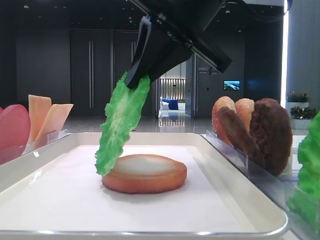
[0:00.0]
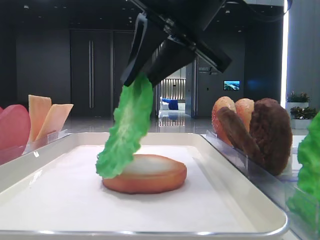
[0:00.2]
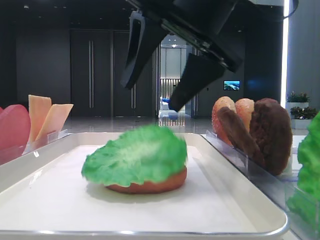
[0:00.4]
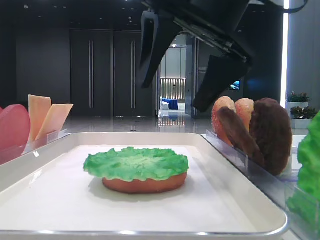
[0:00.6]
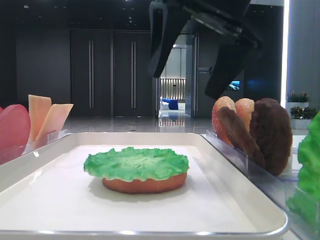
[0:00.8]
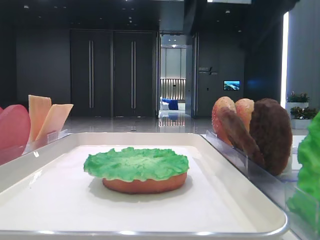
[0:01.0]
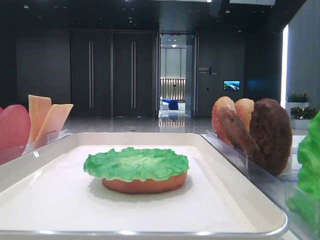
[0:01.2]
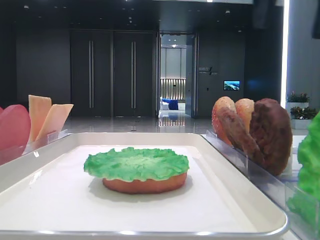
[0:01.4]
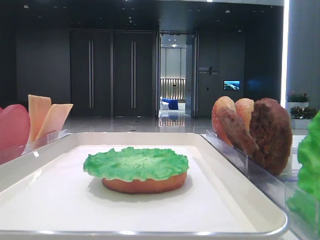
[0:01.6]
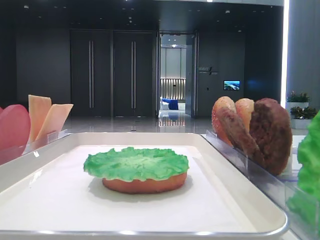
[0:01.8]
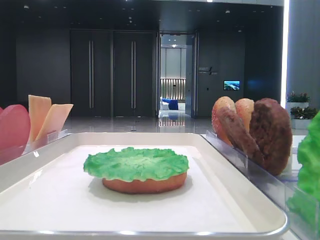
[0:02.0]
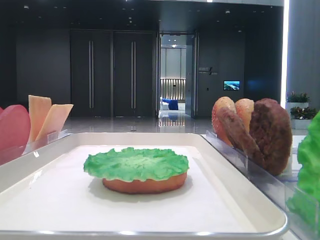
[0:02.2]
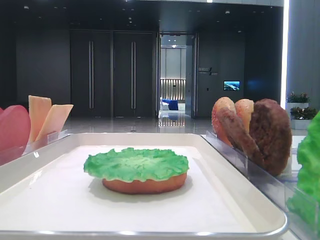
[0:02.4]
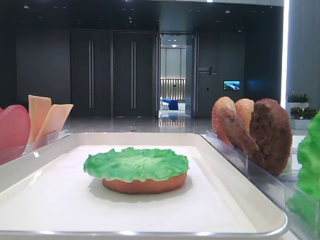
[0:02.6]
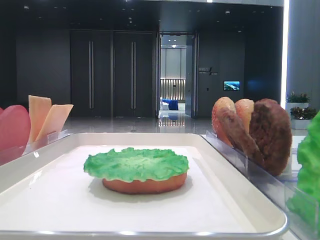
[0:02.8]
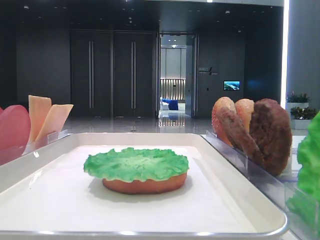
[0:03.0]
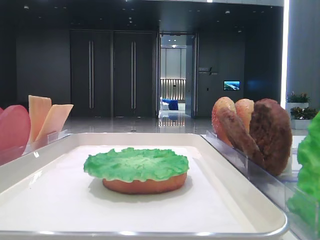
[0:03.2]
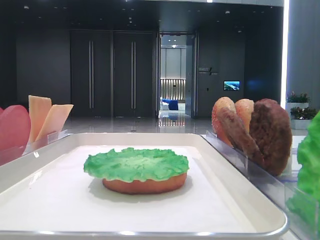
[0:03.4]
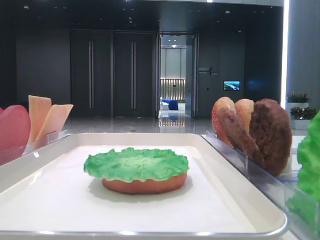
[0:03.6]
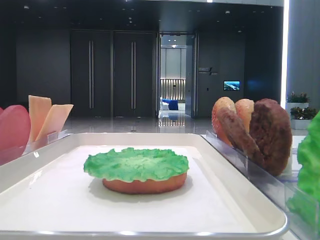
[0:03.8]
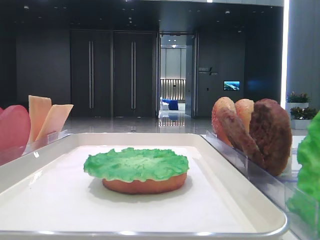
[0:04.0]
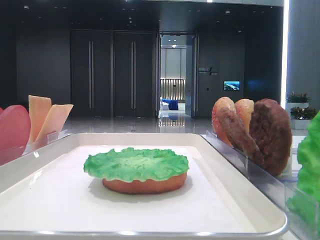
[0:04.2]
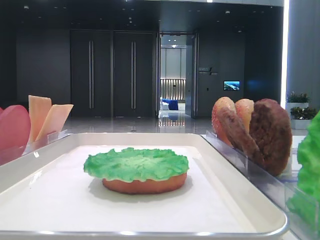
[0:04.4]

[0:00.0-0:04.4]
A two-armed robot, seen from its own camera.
0:00.0 to 0:01.4: The right gripper goes about 15 cm to the right and upward, and opens.
0:01.4 to 0:03.0: The right gripper travels backward and to the right by about 30 cm.

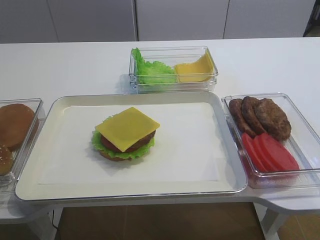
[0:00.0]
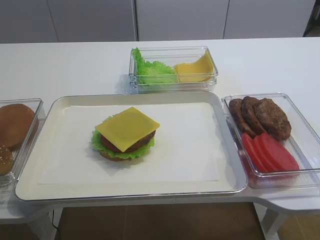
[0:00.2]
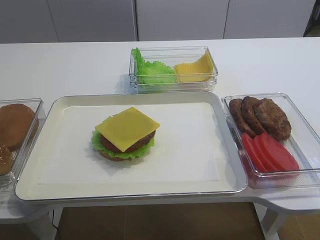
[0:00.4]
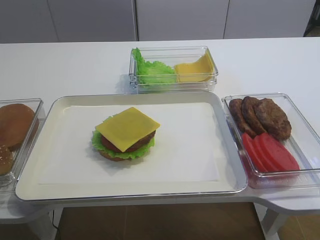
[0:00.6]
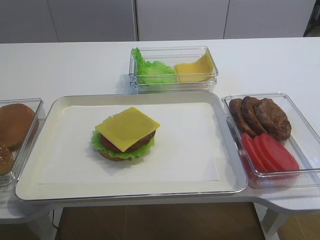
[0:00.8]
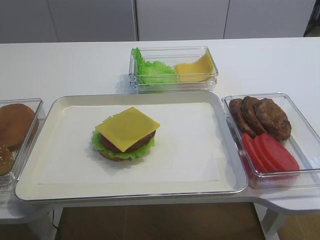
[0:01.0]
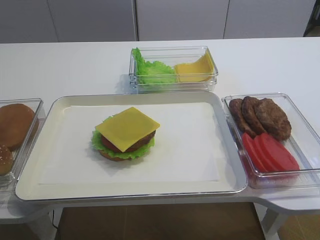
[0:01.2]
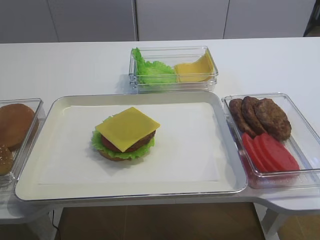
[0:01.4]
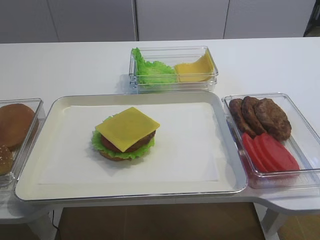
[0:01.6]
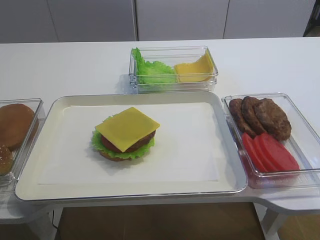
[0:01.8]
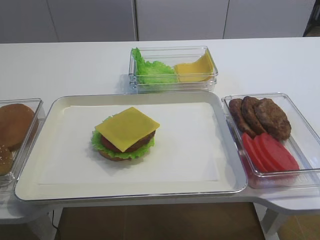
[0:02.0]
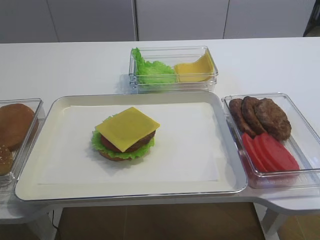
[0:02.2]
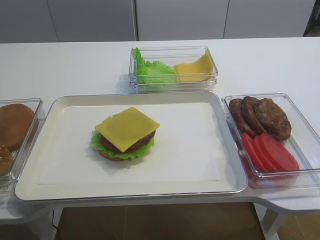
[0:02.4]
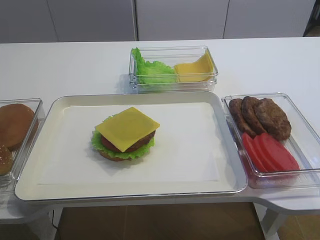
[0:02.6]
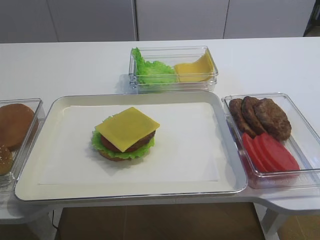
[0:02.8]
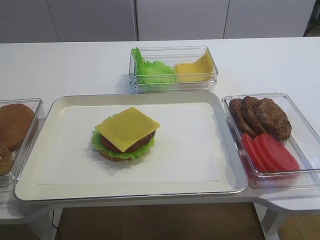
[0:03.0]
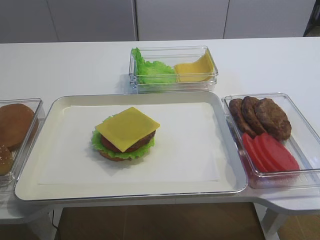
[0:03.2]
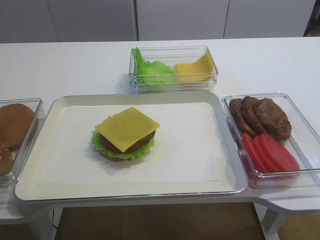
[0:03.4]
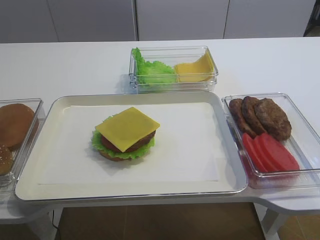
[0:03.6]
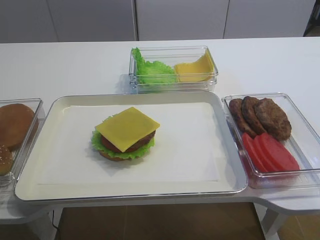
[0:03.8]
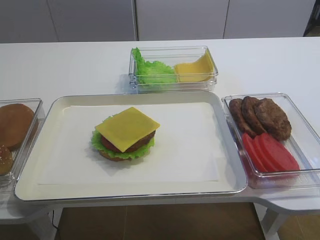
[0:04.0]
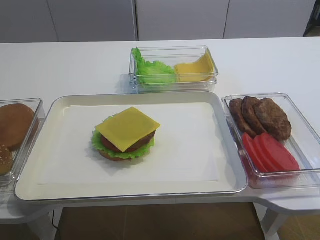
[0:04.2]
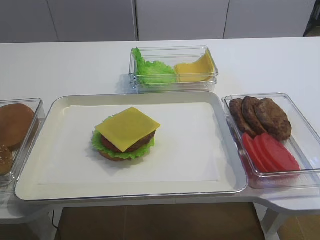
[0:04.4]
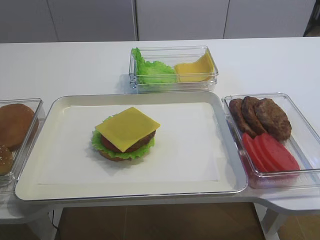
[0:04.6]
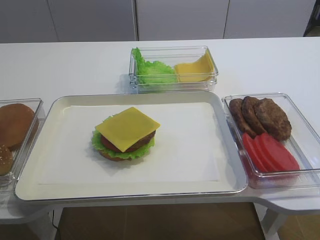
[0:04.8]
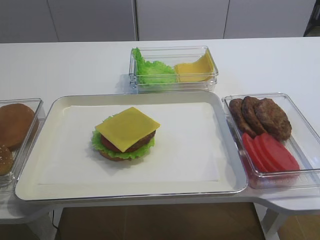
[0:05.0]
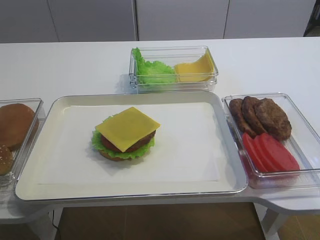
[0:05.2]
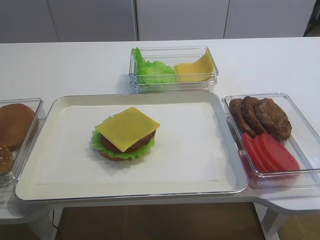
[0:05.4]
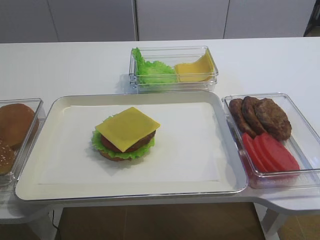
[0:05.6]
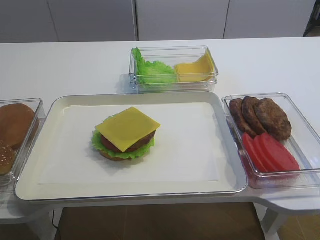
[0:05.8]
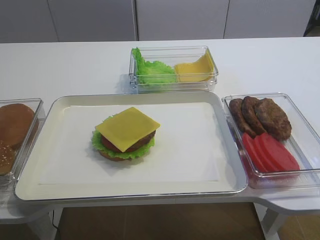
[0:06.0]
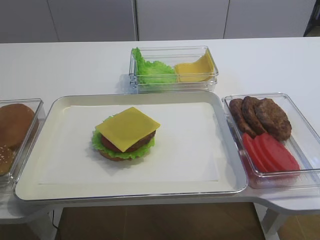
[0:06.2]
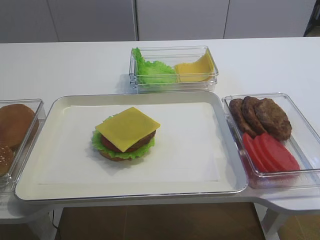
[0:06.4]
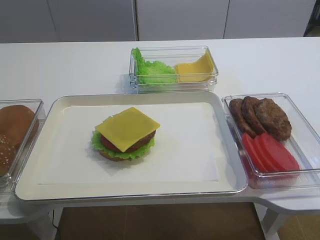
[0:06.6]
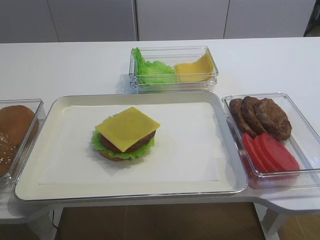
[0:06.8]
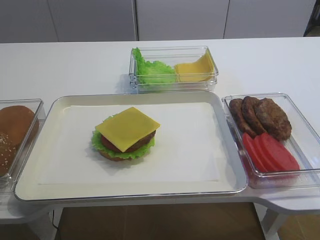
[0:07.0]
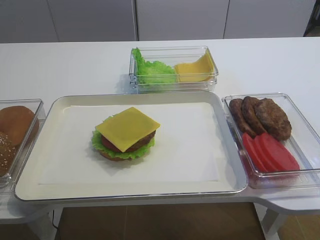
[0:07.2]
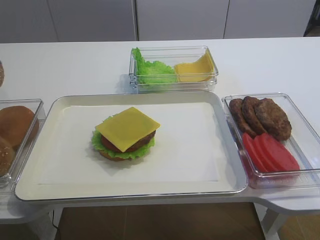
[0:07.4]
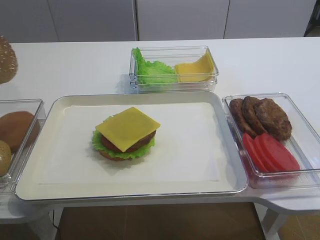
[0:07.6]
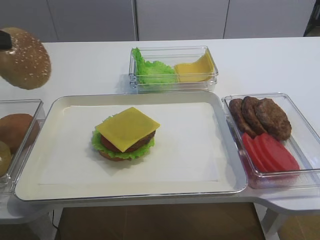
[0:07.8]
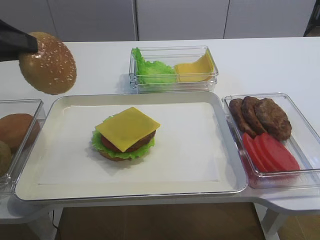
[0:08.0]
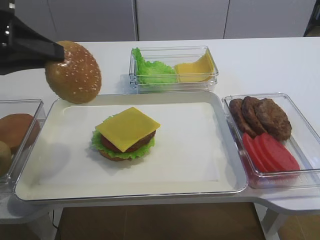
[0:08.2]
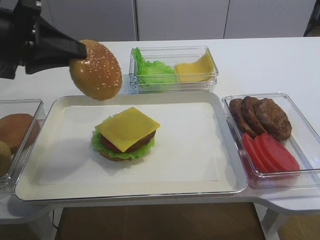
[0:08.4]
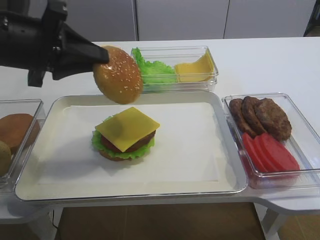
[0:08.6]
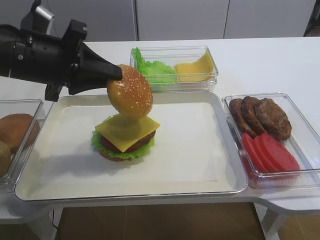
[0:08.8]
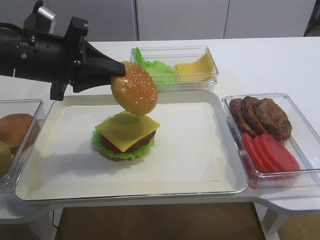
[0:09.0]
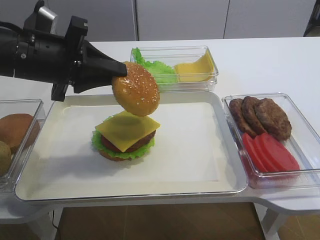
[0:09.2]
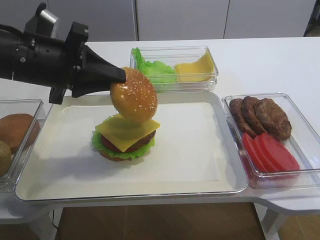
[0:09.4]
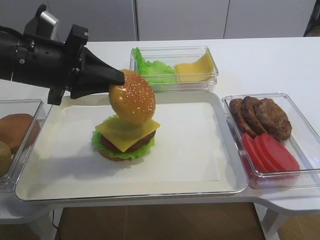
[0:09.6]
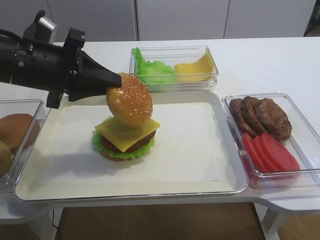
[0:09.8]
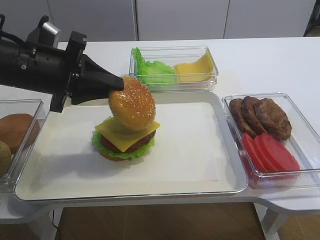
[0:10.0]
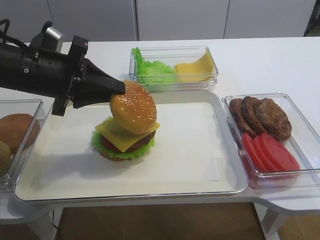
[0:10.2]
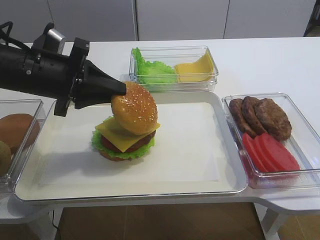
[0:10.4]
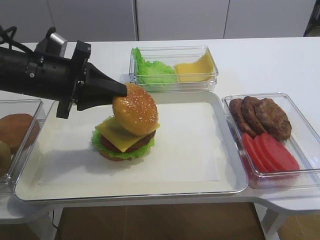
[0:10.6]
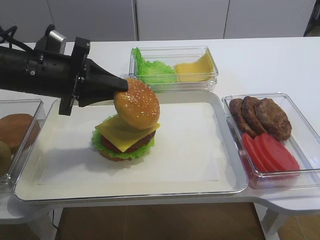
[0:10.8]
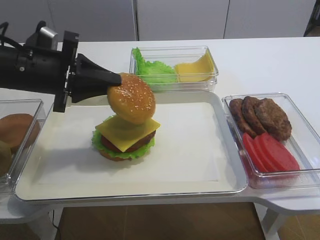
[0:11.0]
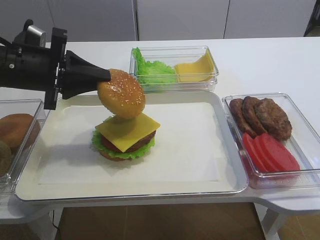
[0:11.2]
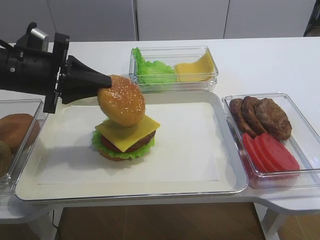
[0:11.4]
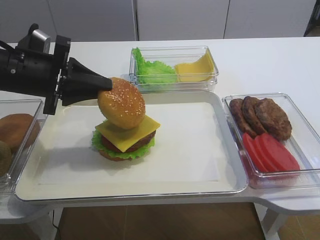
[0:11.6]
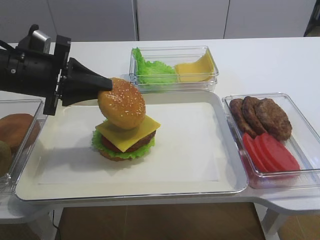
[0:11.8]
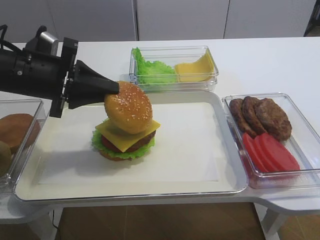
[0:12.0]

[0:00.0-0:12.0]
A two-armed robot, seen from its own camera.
0:06.0 to 0:07.6: The left gripper moves upward, roughly 10 cm.
0:07.6 to 0:09.0: The left gripper is displaced to the right by about 15 cm.
0:09.0 to 0:12.0: The grippers make only small movements.

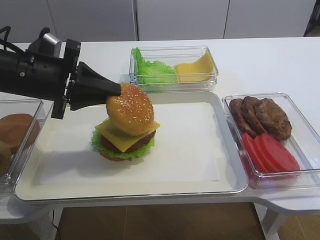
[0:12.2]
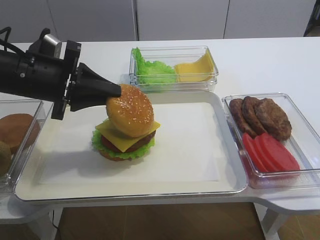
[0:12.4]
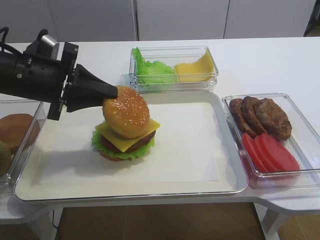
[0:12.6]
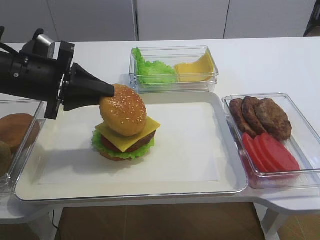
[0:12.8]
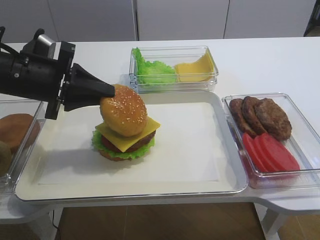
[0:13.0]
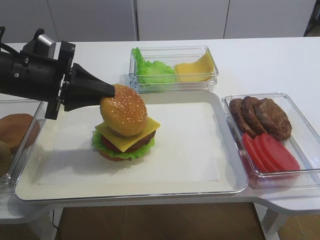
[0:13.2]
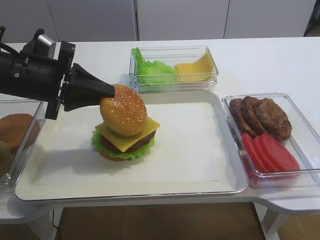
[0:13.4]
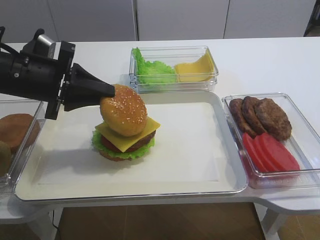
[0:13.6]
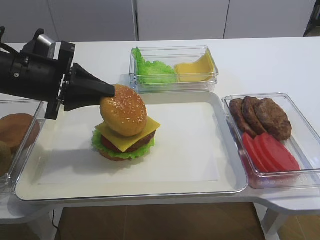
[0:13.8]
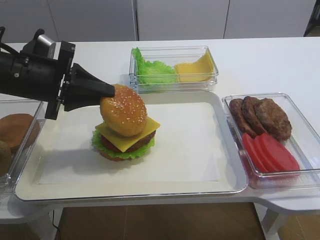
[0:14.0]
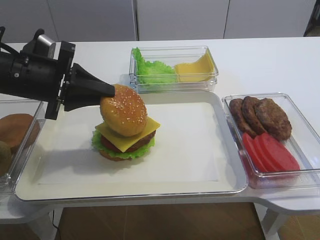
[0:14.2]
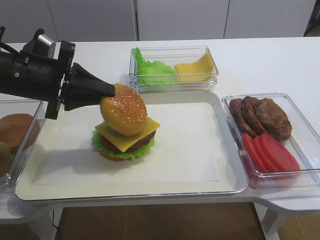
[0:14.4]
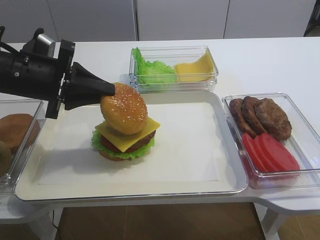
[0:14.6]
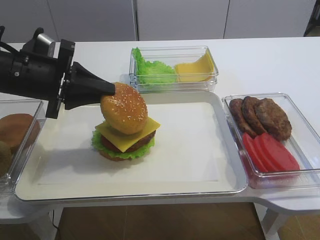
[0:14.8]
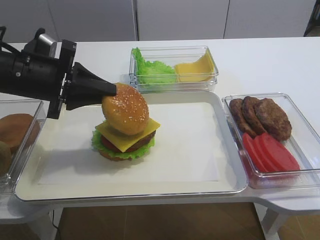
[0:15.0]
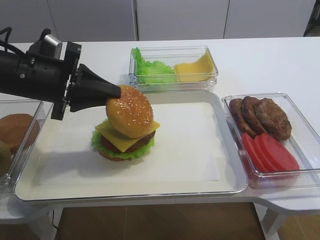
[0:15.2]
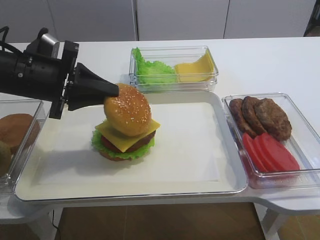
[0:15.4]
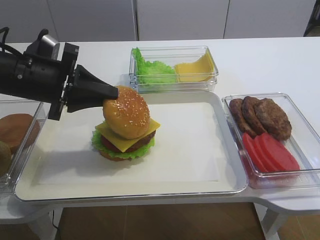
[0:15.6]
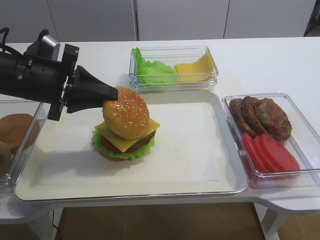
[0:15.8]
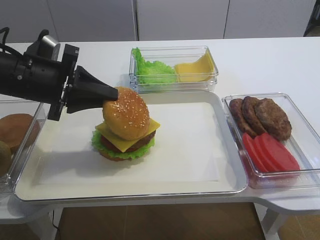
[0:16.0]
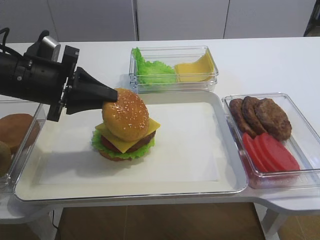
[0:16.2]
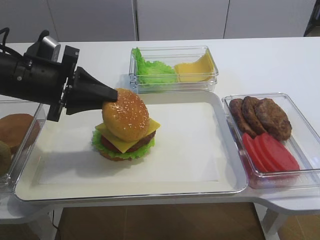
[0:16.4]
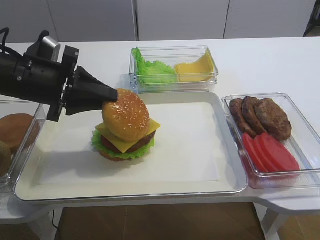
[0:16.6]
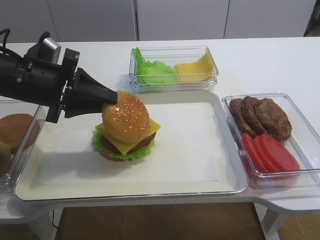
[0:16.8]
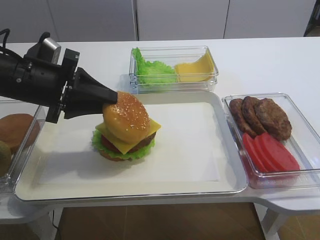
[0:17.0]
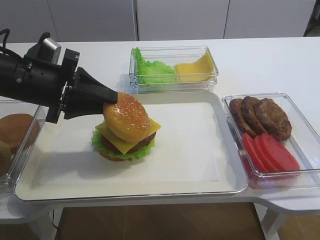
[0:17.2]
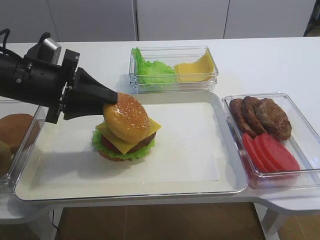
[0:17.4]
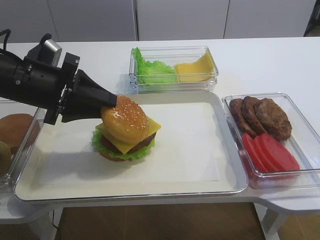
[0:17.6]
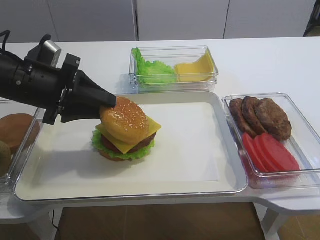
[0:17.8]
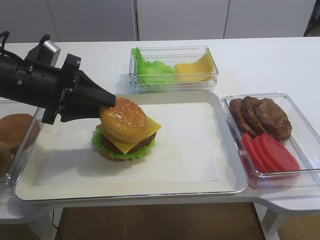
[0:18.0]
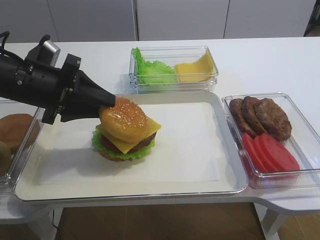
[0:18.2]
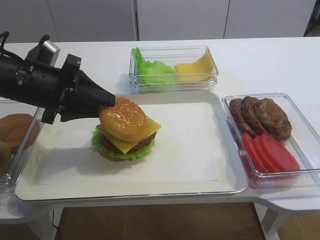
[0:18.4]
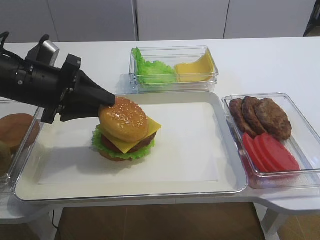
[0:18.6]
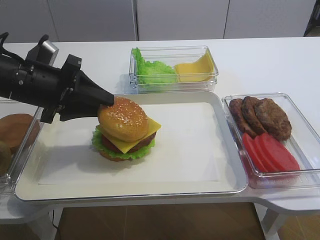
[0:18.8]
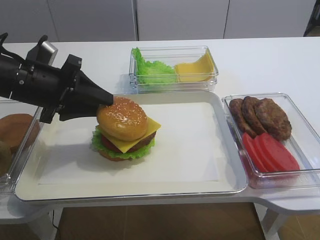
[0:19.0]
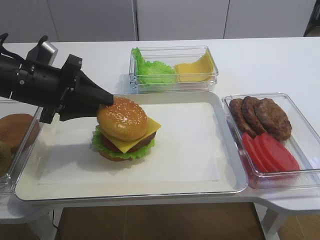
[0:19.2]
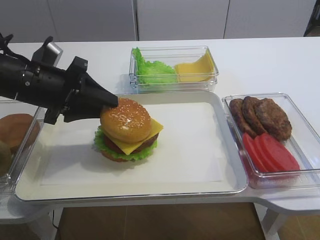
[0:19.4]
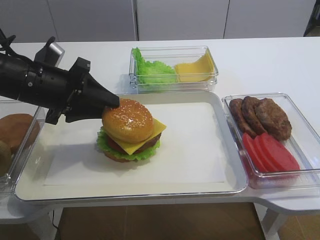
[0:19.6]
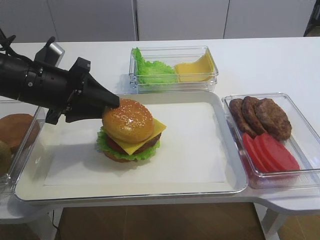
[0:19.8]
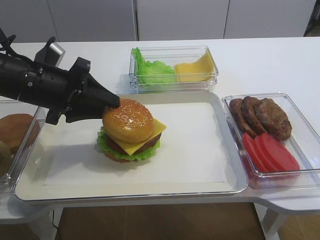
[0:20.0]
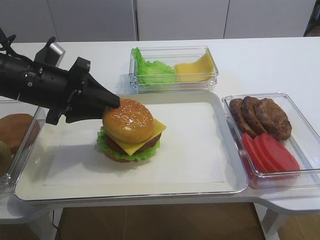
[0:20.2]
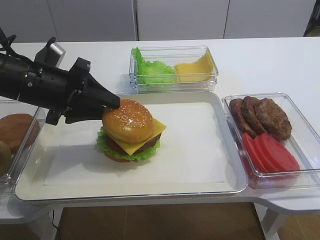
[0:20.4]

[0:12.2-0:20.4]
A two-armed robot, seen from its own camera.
0:12.2 to 0:17.2: The two grippers keep their place.
0:17.2 to 0:18.8: There are only small adjustments of the grippers.
0:18.8 to 0:20.4: Both grippers stay about where they are.
